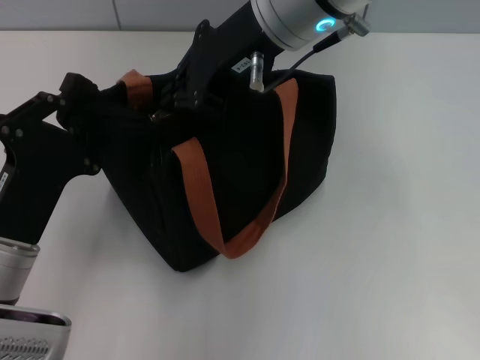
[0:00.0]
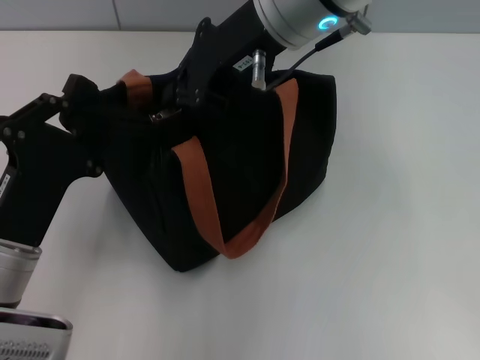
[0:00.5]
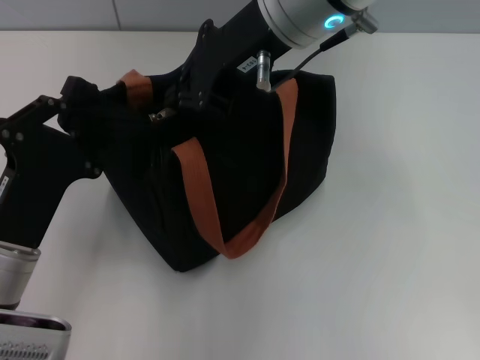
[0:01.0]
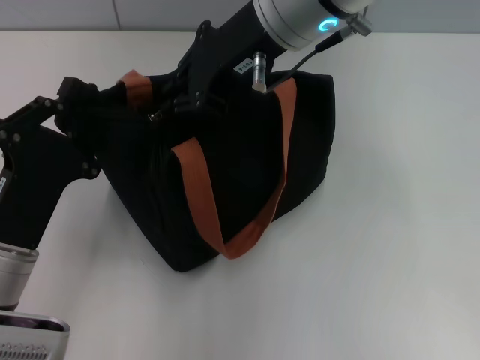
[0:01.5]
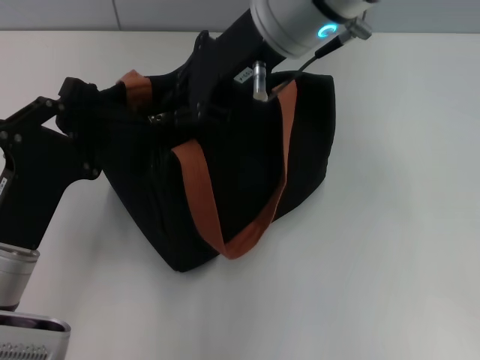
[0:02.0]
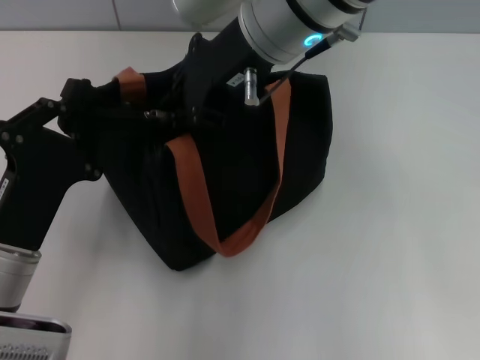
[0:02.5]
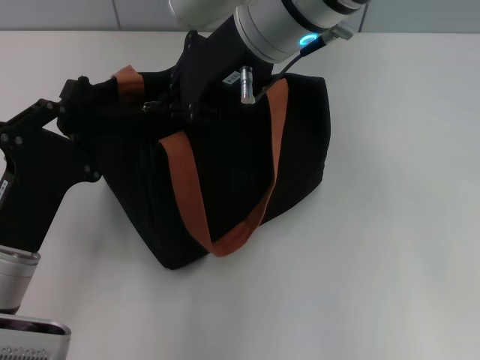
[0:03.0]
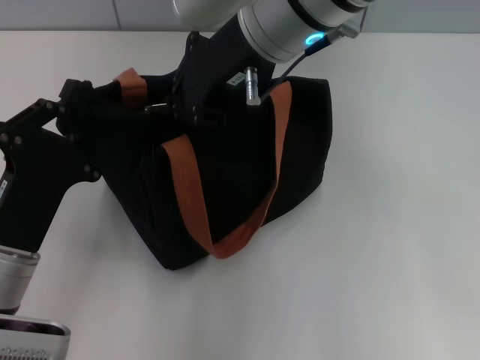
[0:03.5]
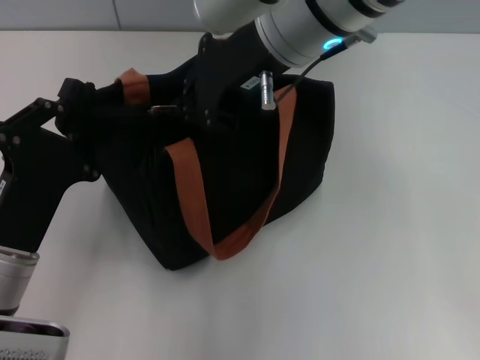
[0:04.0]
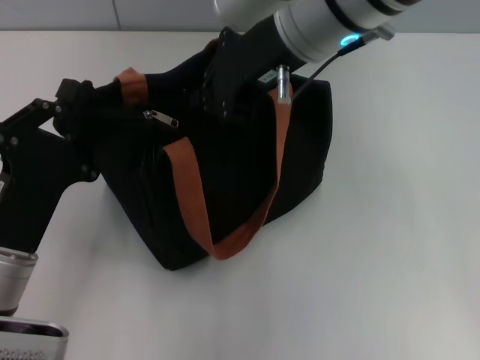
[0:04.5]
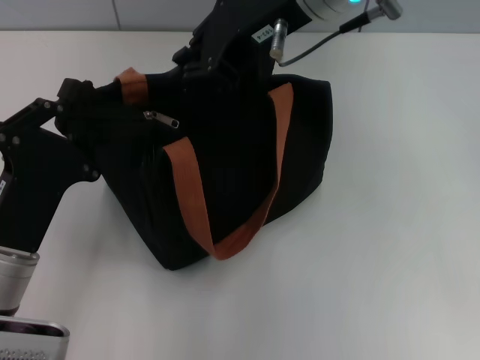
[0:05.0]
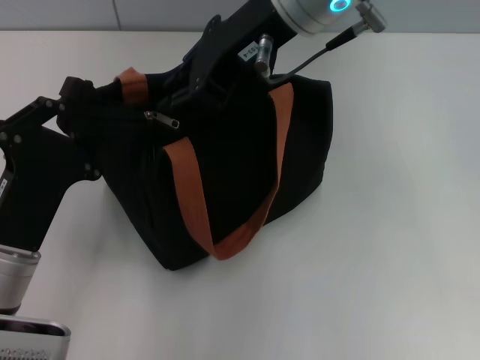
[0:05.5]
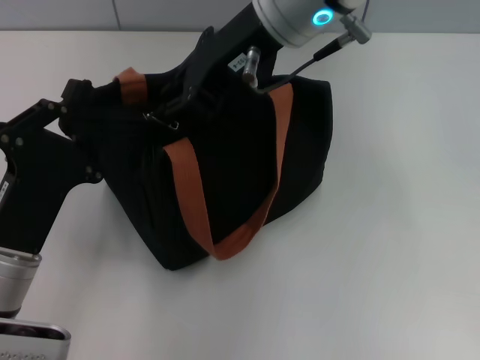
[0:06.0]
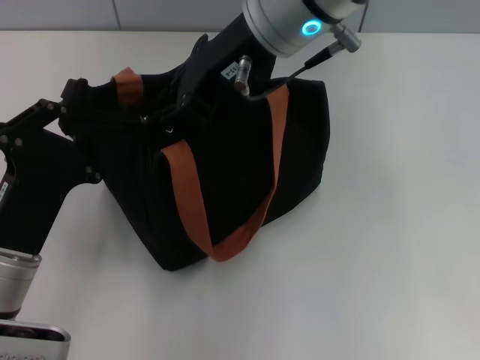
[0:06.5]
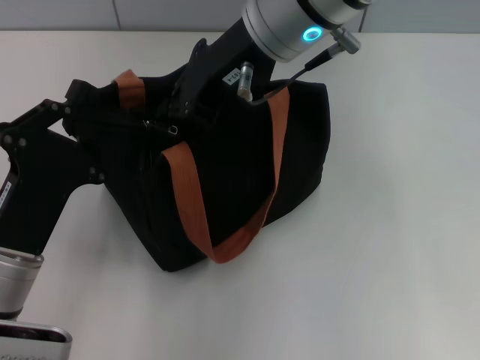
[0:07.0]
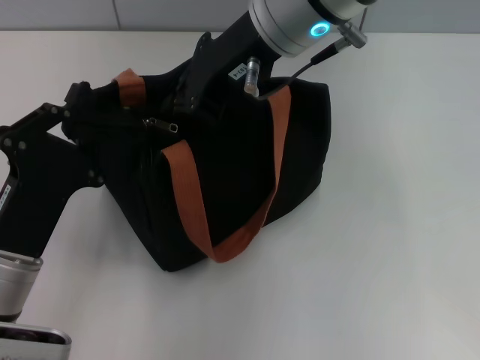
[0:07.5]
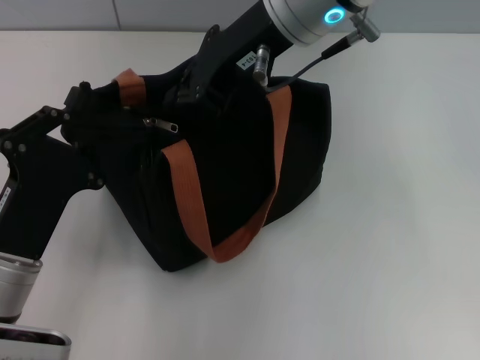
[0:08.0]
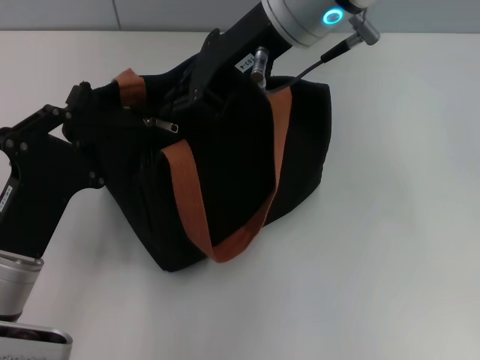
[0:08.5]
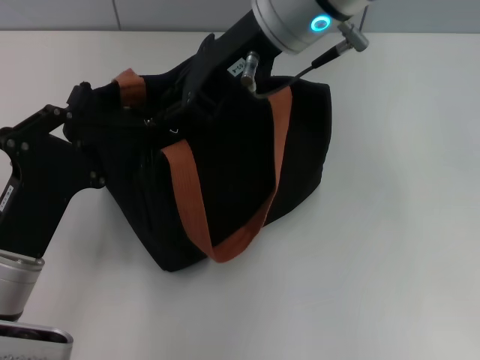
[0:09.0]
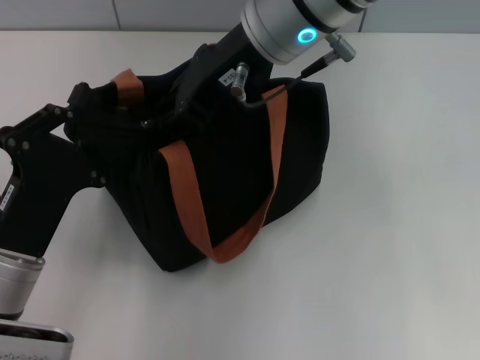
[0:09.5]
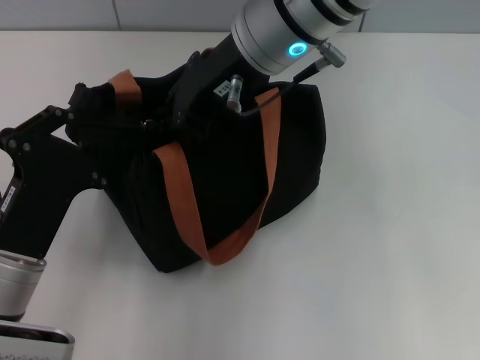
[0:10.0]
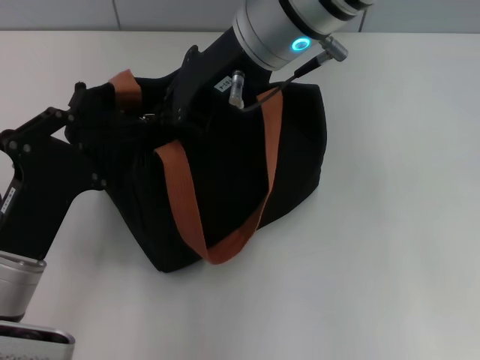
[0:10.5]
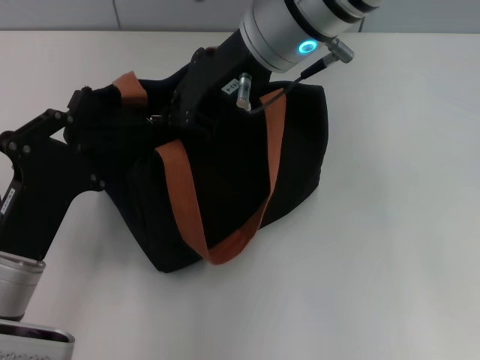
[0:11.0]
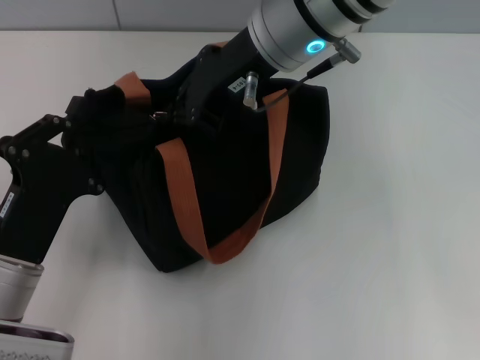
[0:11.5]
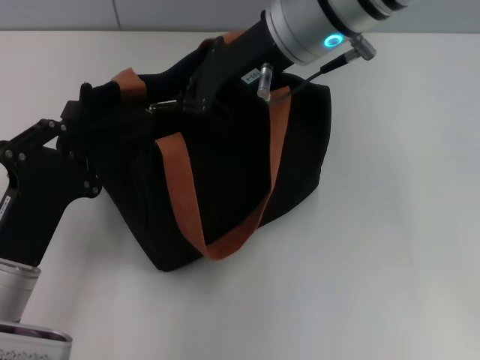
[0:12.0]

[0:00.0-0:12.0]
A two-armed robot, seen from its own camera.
0:00.0 to 0:02.0: Both grippers stay about where they are.
0:02.0 to 0:06.0: There are only small adjustments of the grippers.
0:06.0 to 0:08.0: Neither gripper changes place.
0:08.0 to 0:12.0: The grippers make only small movements.

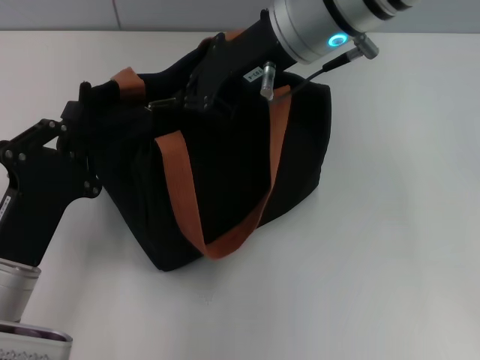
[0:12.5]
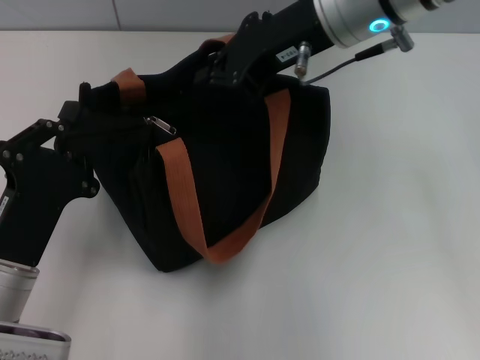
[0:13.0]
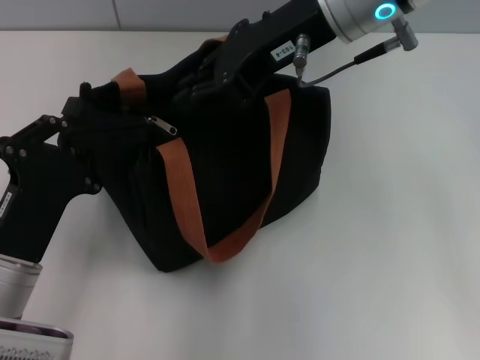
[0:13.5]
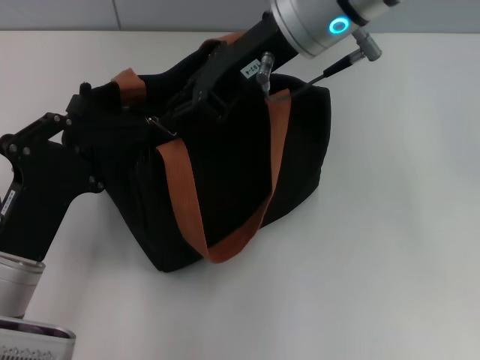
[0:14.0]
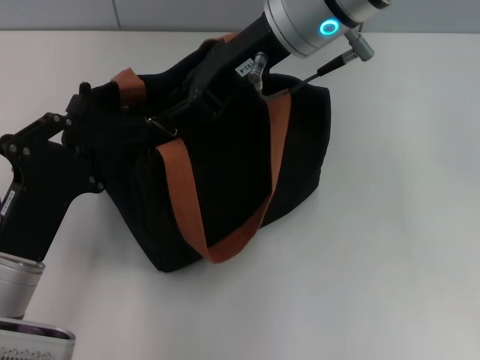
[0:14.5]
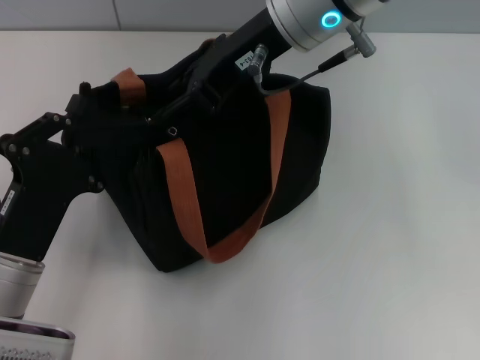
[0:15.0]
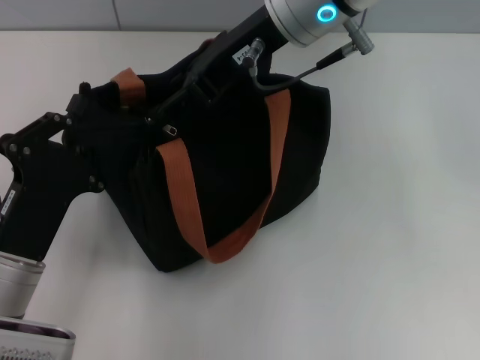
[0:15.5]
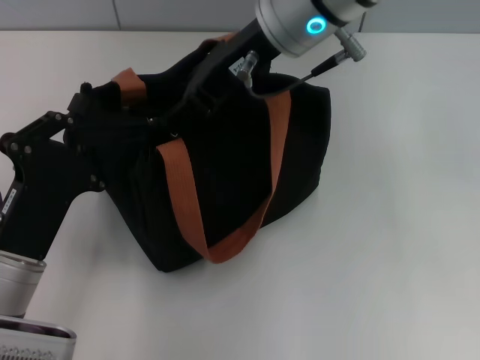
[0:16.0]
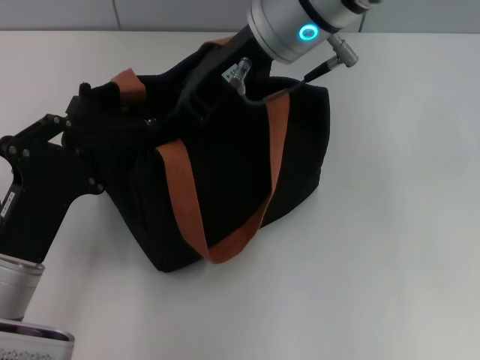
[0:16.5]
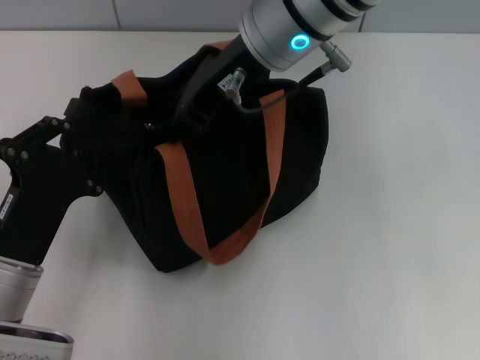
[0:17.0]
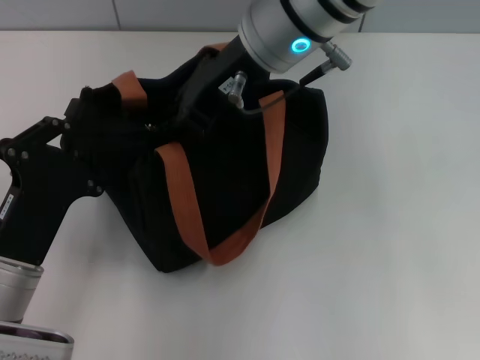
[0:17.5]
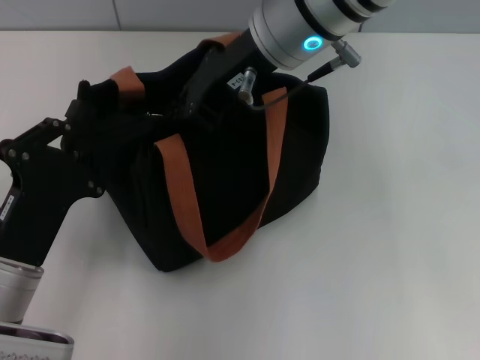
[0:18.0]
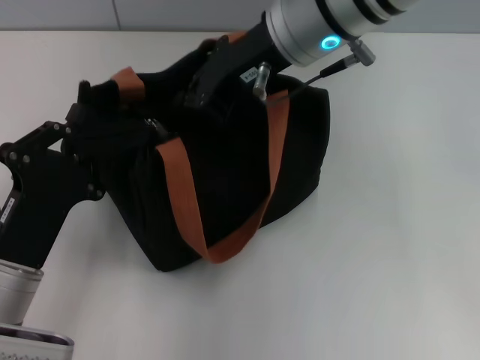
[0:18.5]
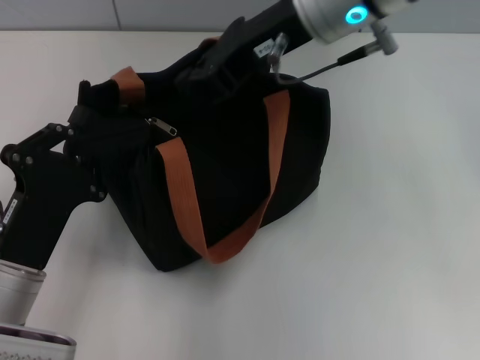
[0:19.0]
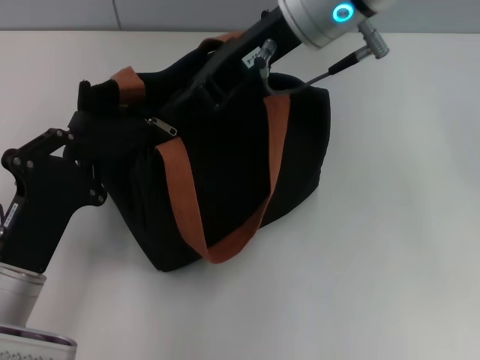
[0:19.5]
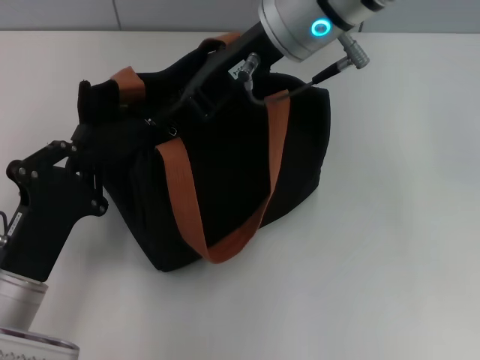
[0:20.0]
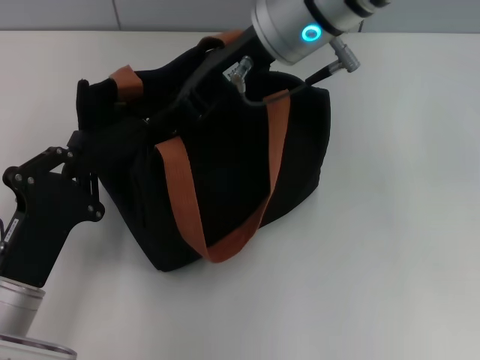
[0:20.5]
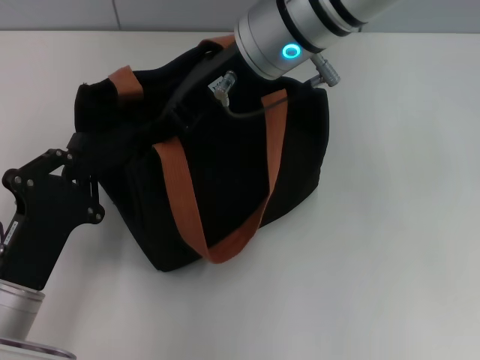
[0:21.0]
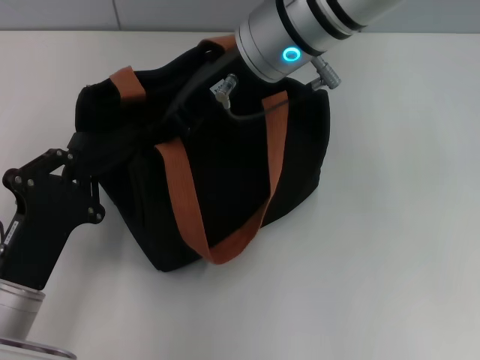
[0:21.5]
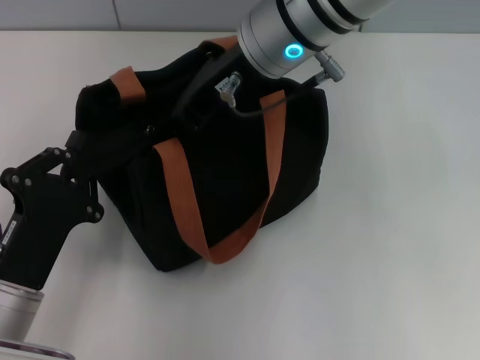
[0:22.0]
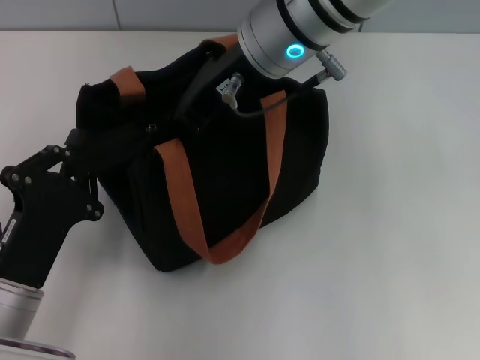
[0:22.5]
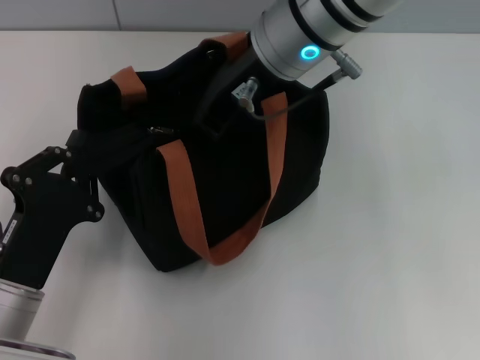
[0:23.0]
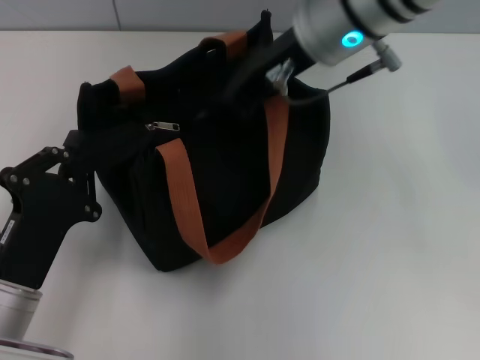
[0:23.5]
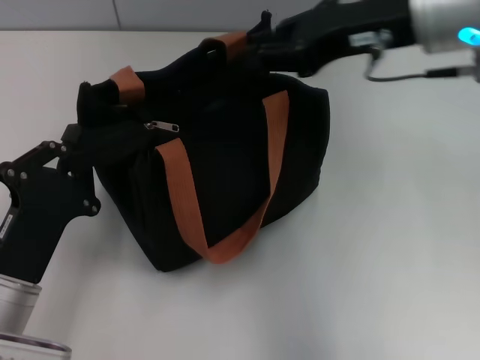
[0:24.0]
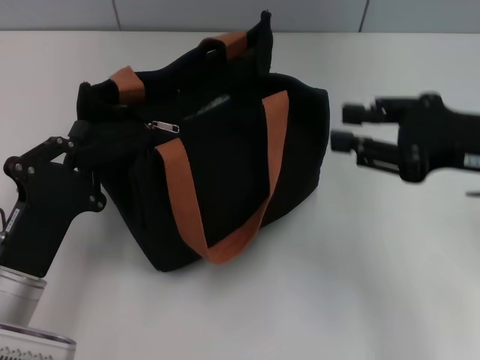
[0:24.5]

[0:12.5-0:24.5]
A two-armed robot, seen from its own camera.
0:12.5 to 0:14.5: The right gripper opens.
0:14.5 to 0:16.5: The right gripper opens up.
0:16.5 to 0:18.5: The right gripper closes.
0:18.5 to 0:20.5: The right gripper opens.
0:20.5 to 0:22.5: The right gripper closes up.
0:22.5 to 0:24.5: The right gripper shifts some 25 cm to the right and backward, and opens its fingers.

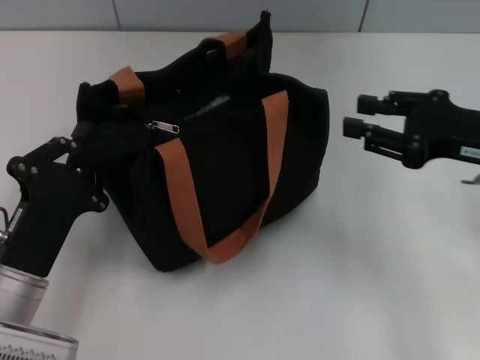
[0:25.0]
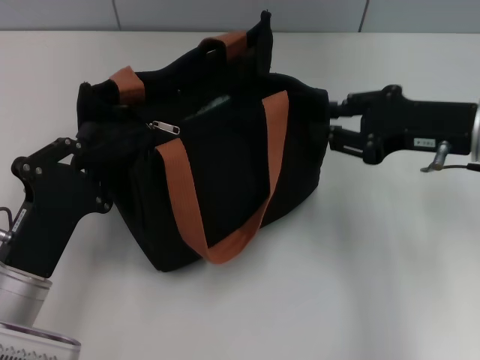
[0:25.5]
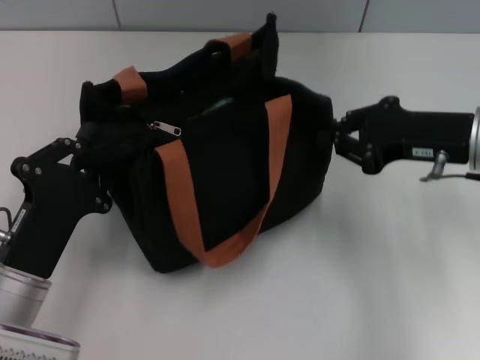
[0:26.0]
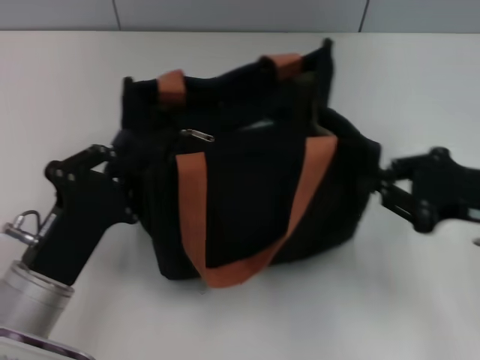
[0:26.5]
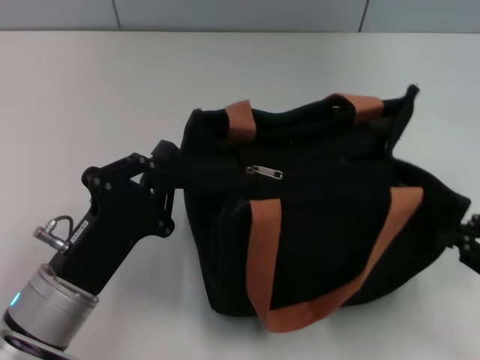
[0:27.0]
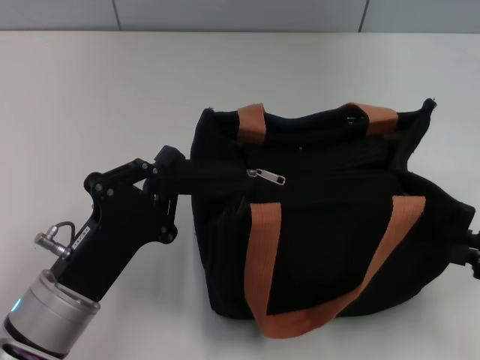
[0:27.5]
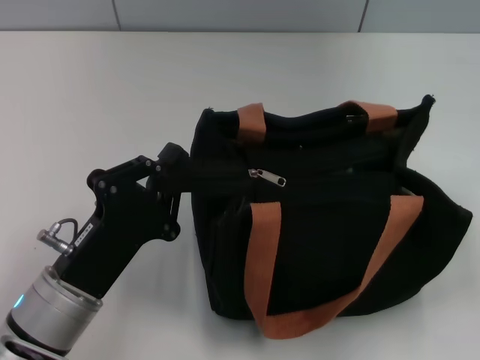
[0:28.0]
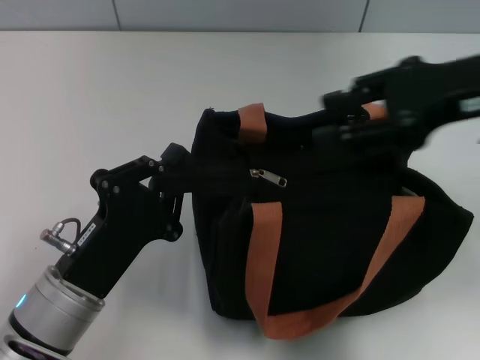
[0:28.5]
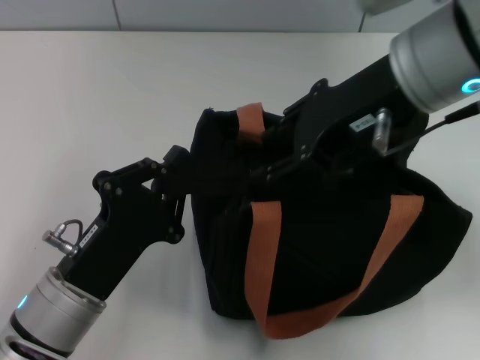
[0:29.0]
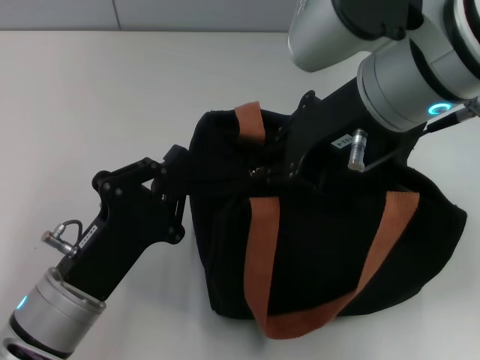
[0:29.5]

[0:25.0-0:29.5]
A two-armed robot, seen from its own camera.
0:25.0 to 0:27.0: The right gripper is displaced backward and to the right by approximately 15 cm, and closes.
0:27.0 to 0:29.5: The right gripper goes about 30 cm to the left, upward and forward, and opens up.
